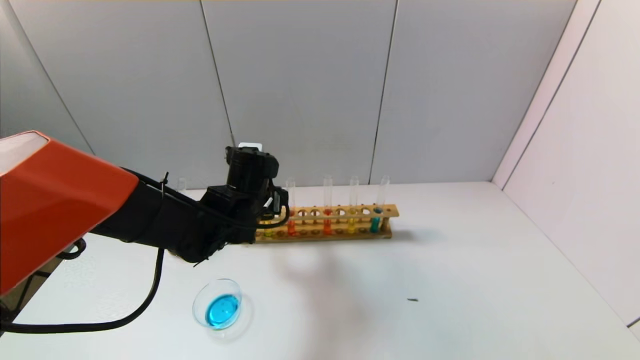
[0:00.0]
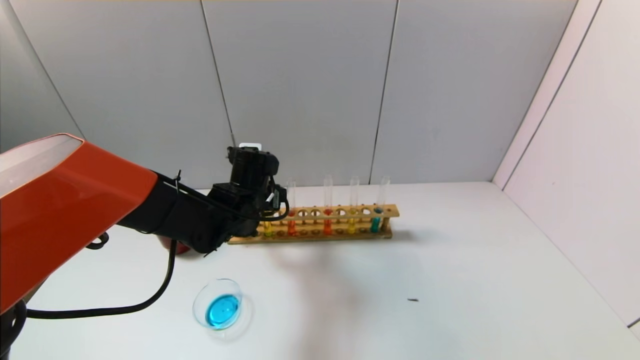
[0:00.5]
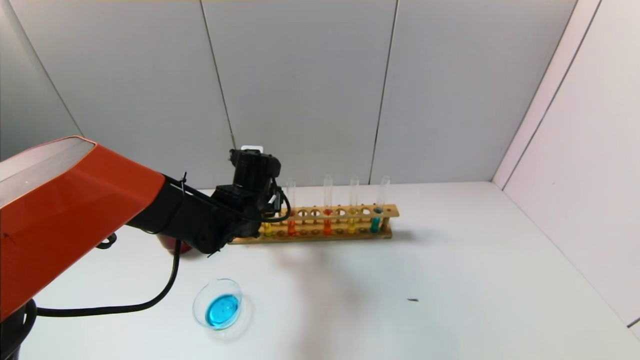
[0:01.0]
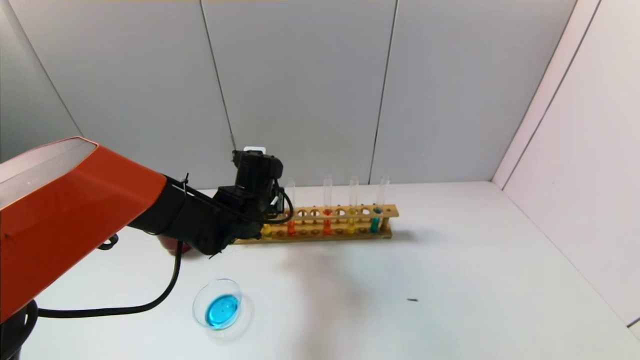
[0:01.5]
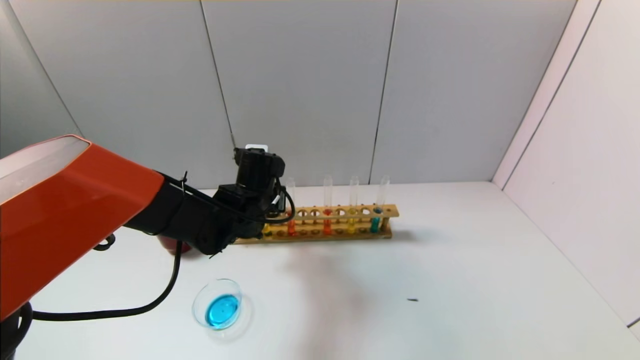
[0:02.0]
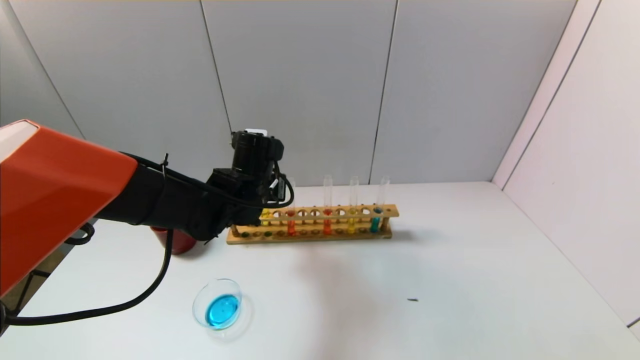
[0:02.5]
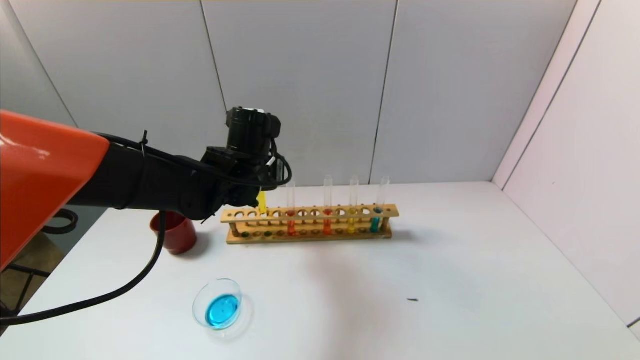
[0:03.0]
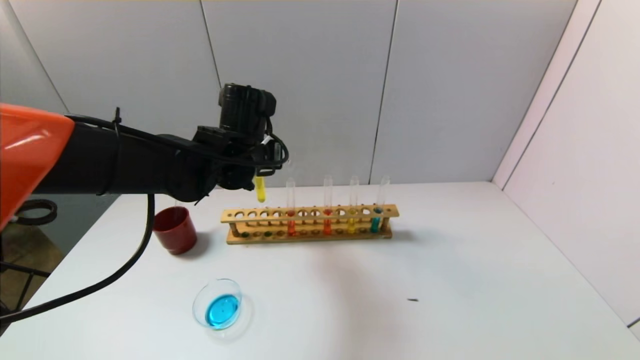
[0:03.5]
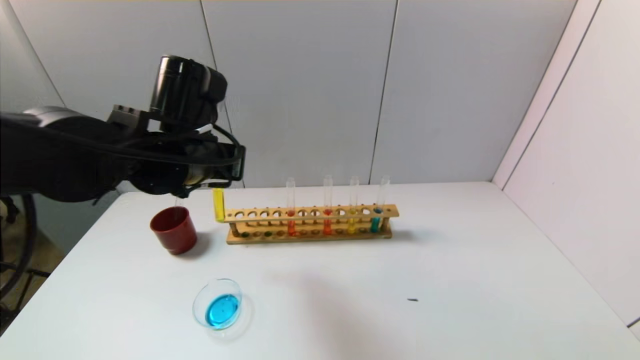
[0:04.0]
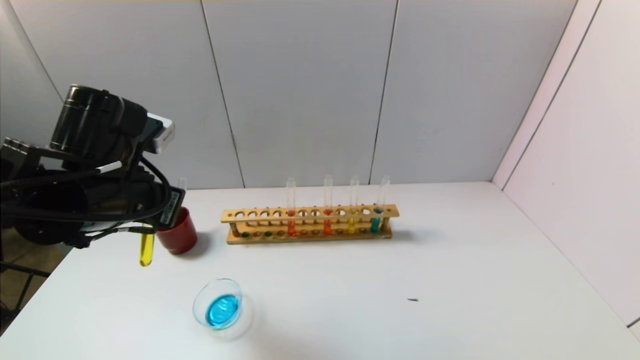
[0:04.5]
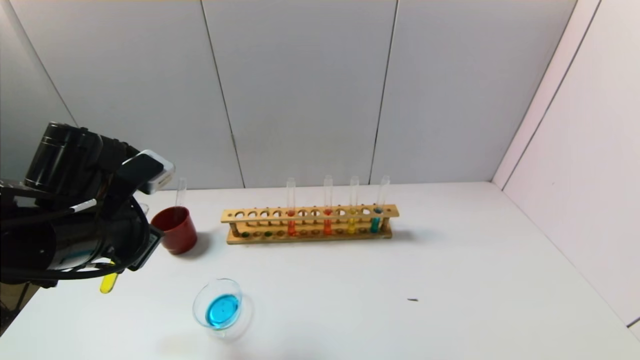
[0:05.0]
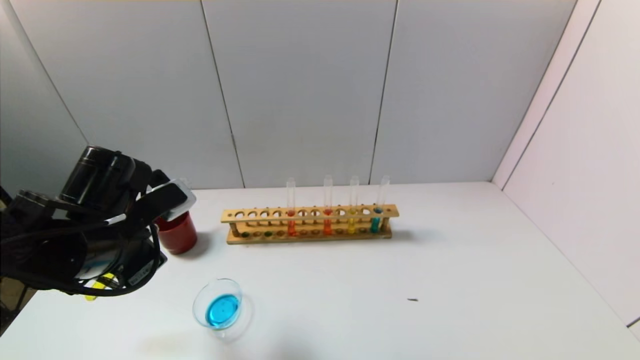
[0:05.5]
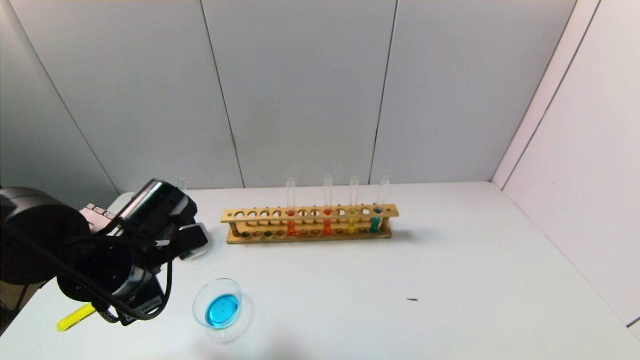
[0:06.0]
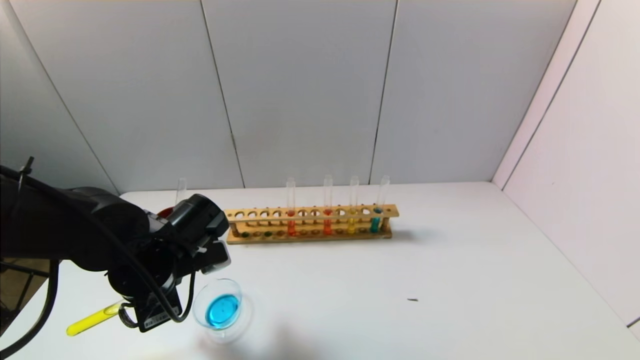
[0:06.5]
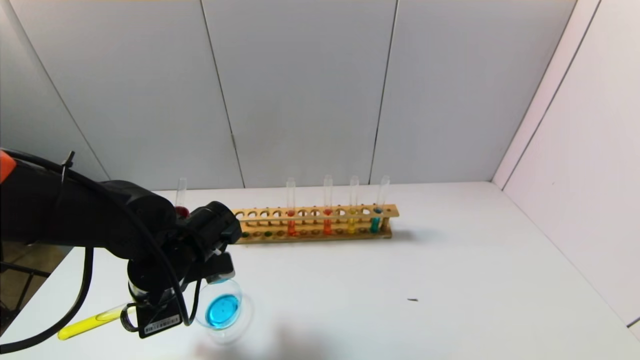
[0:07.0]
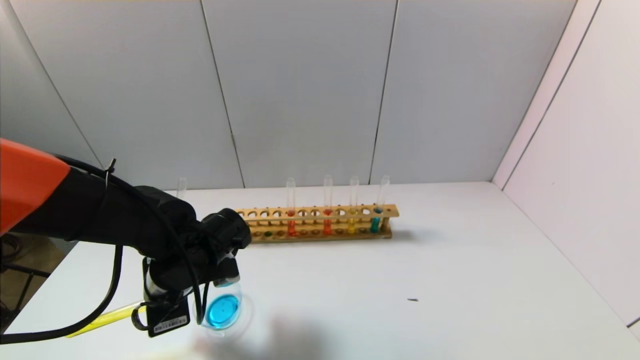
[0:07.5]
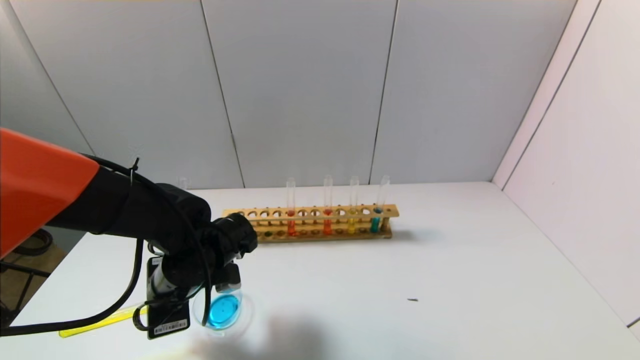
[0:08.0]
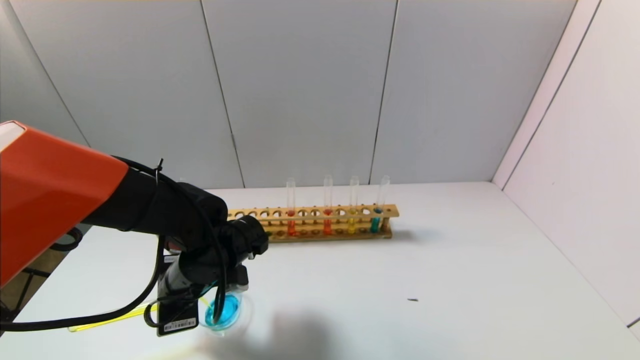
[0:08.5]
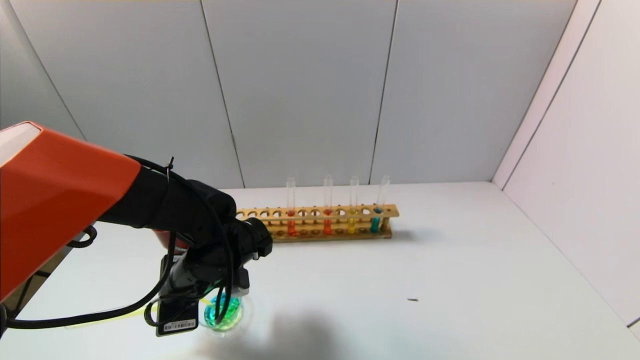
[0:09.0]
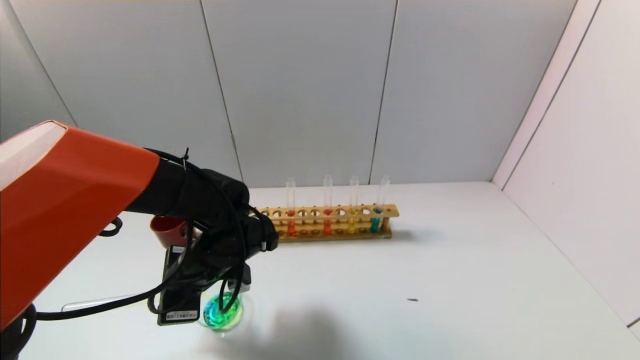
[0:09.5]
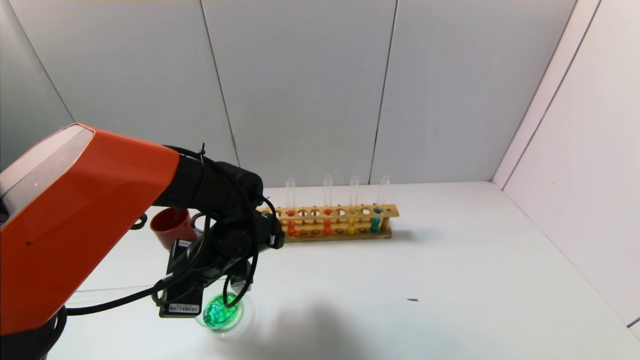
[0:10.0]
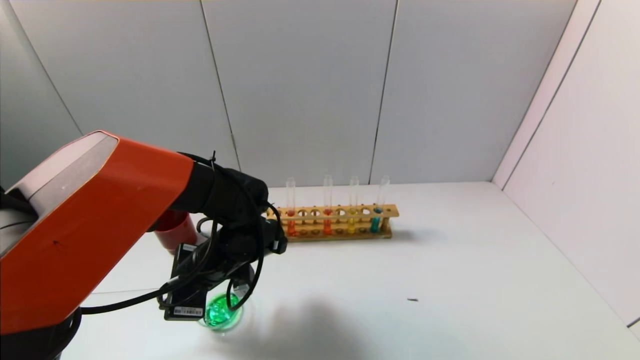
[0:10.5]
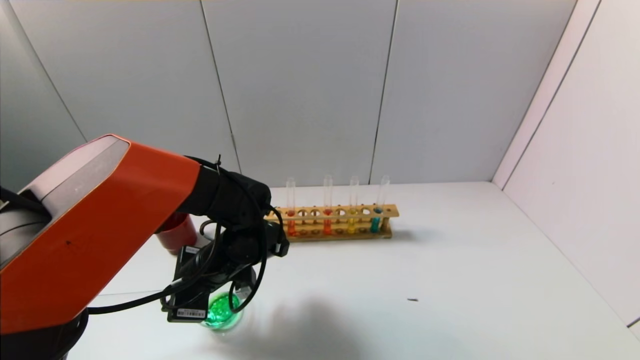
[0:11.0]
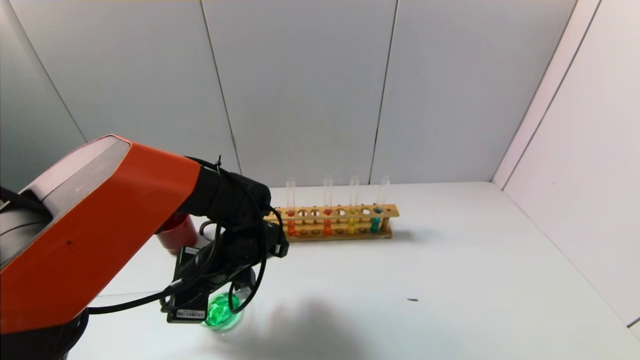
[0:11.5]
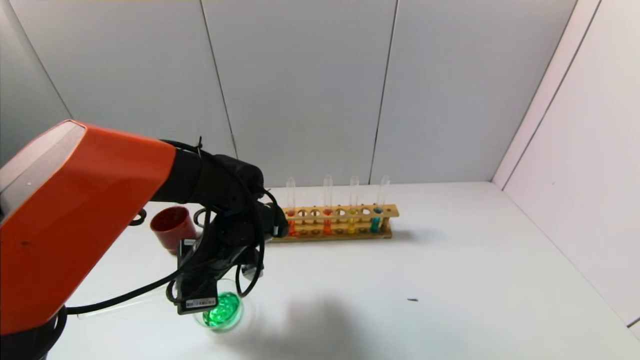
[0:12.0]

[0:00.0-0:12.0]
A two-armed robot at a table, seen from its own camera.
Task of the whole recording: pick up the test tube with yellow pigment and the test tube with blue pigment by grippers and pour them into the beaker.
Step, 0:02.0 to 0:10.5: Pour the yellow reagent into the graduated cylinder with the left gripper.
0:00.0 to 0:02.0: The left gripper closes up.
0:02.0 to 0:04.0: The left gripper heads upward and backward, covering approximately 15 cm.
0:04.0 to 0:06.0: The left gripper shifts approximately 15 cm downward, to the left and backward.
0:06.0 to 0:08.0: The left gripper ends up some 5 cm from where it was.
0:08.0 to 0:12.0: There are only small adjustments of the grippers.

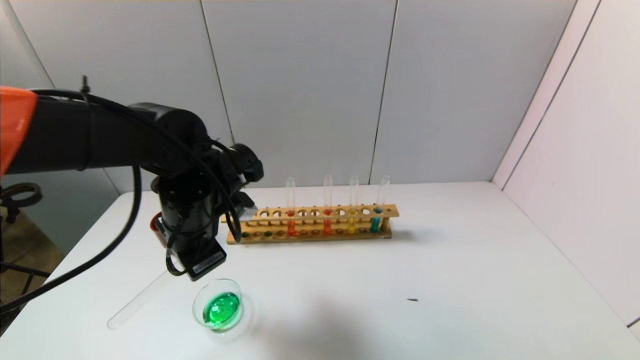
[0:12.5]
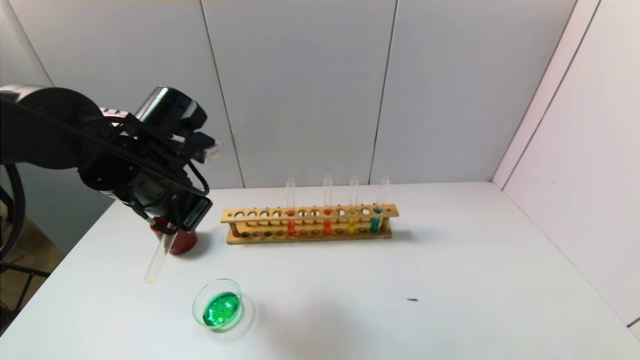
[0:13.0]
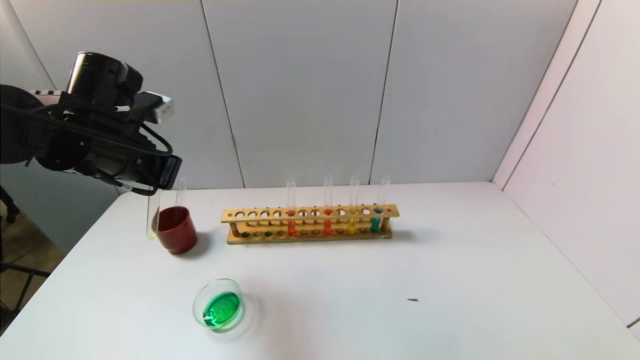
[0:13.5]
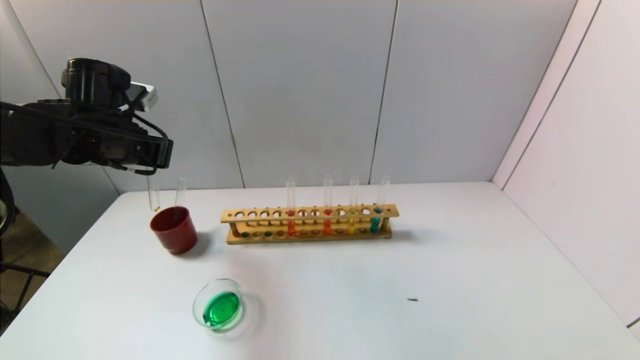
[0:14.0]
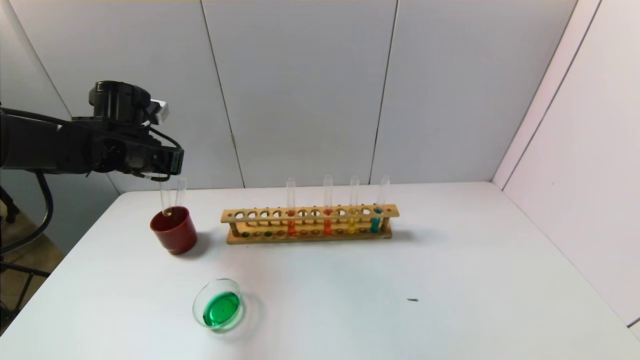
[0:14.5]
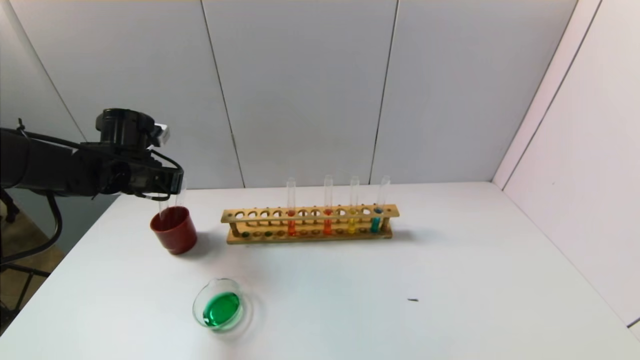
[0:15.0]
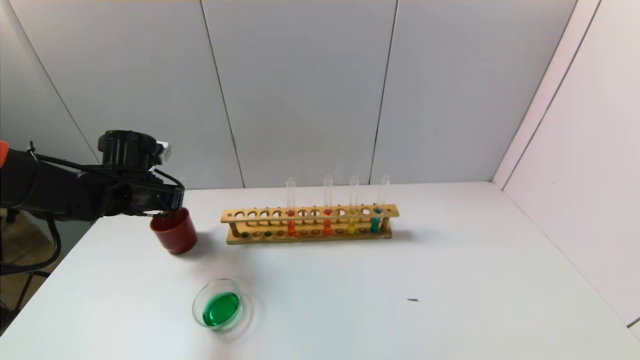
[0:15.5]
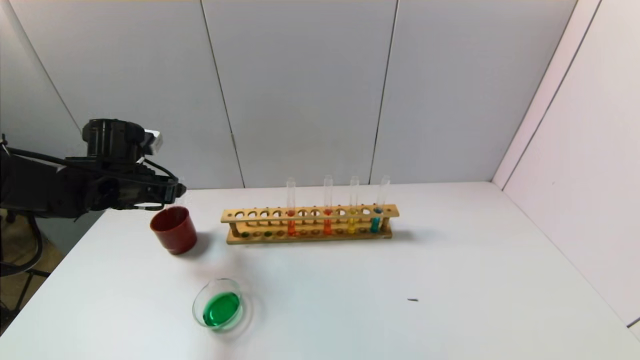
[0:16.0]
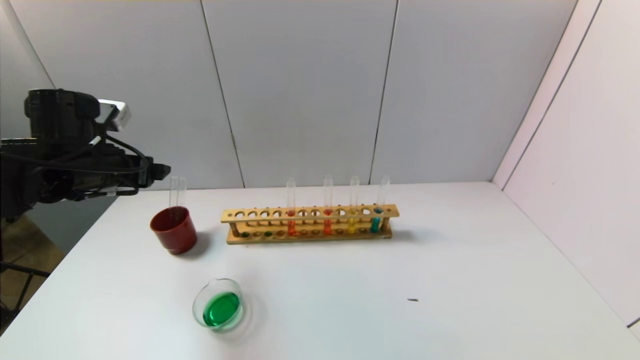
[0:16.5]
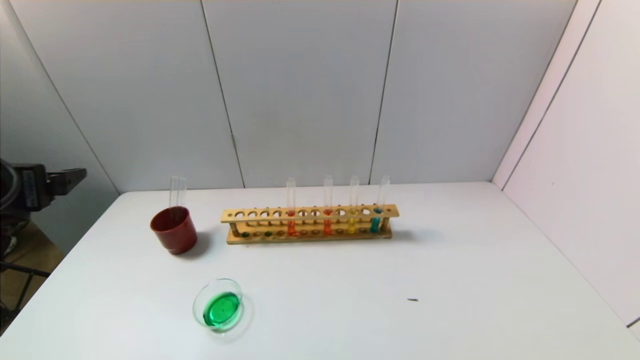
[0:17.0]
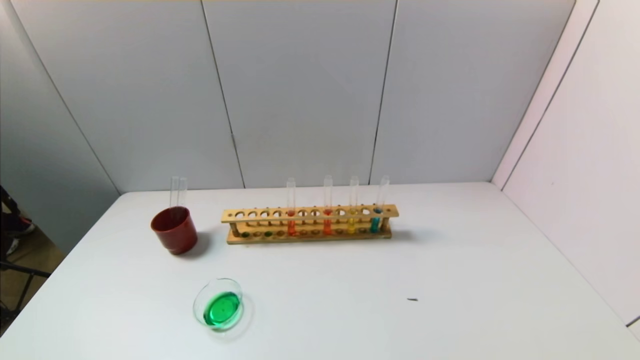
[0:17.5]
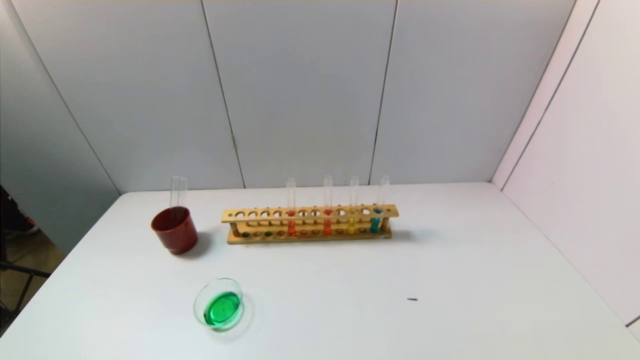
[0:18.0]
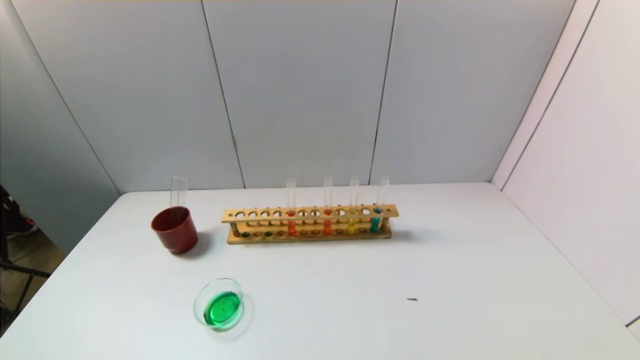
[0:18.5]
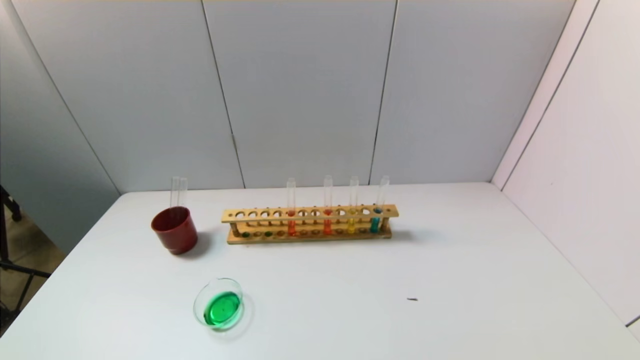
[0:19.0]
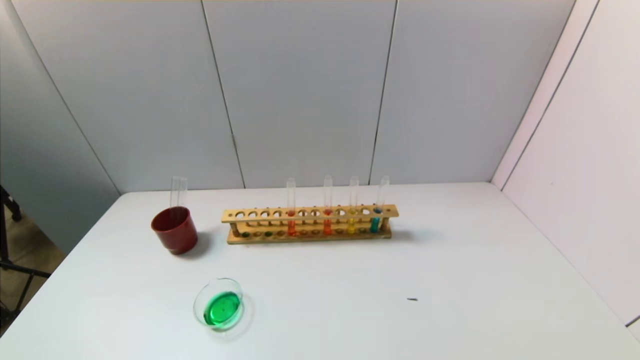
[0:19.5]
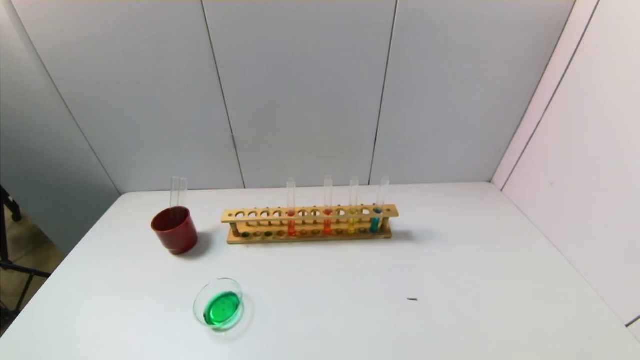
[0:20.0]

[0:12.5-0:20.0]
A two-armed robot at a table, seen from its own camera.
Task of the whole recording: pick up the test tube with yellow pigment and the test tube with blue pigment by grippers and pour them into the beaker.
Step, 0:12.5 to 0:16.0: Place the test tube into the brown cup with the left gripper.
0:12.5 to 0:14.5: The left gripper goes some 15 cm to the left and forward.
0:14.5 to 0:16.5: The left gripper moves backward, roughly 5 cm, goes downward and returns, about 5 cm each way, and opens its fingers.
0:16.5 to 0:18.0: The left gripper heads backward, covering about 35 cm.
